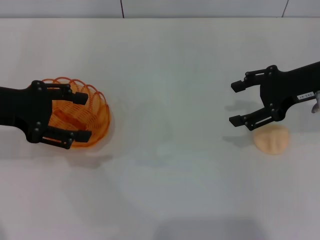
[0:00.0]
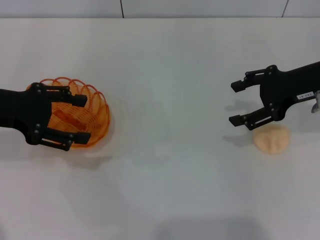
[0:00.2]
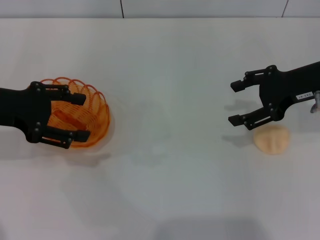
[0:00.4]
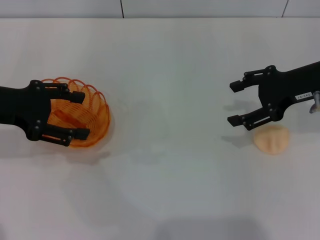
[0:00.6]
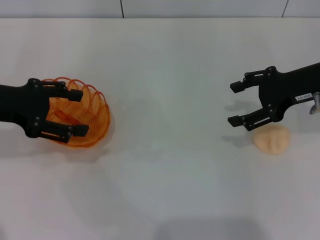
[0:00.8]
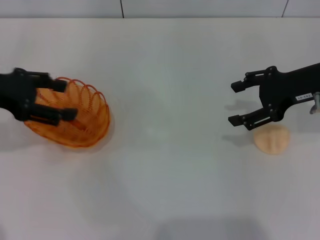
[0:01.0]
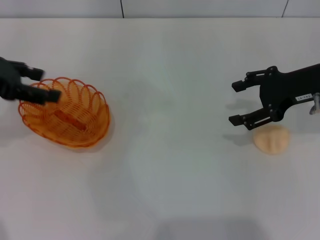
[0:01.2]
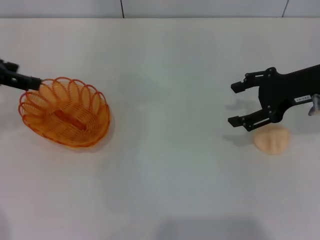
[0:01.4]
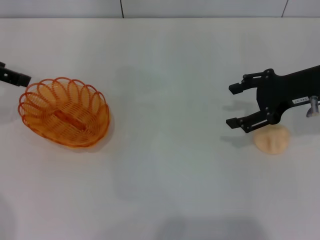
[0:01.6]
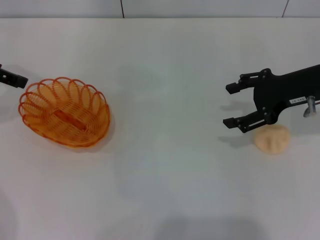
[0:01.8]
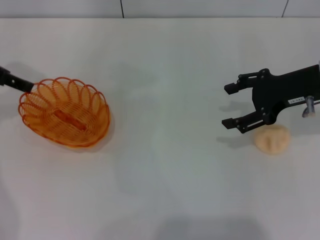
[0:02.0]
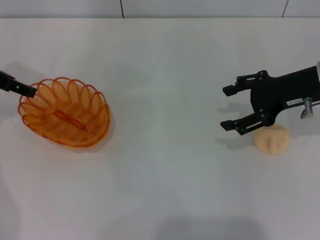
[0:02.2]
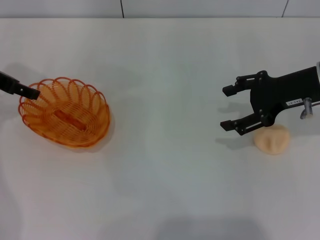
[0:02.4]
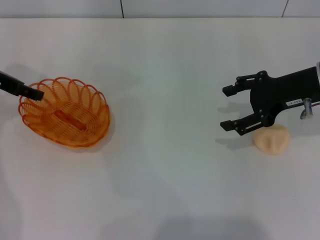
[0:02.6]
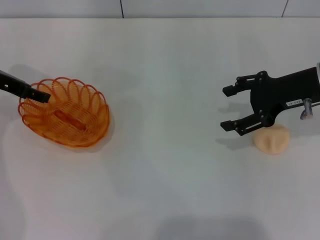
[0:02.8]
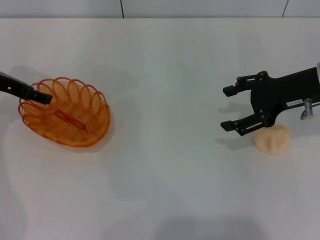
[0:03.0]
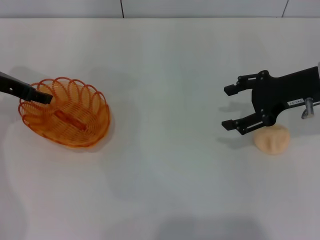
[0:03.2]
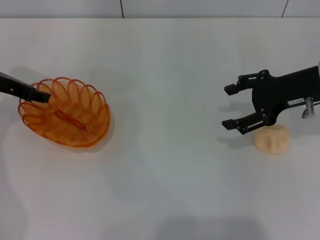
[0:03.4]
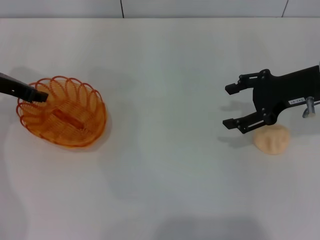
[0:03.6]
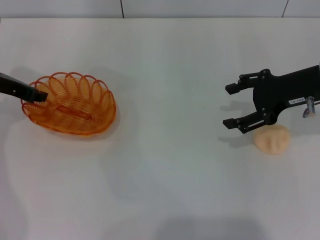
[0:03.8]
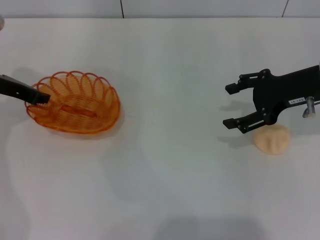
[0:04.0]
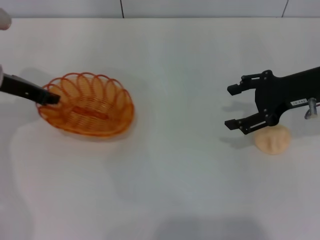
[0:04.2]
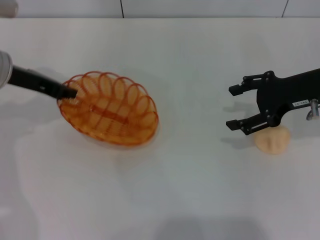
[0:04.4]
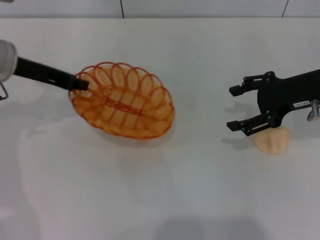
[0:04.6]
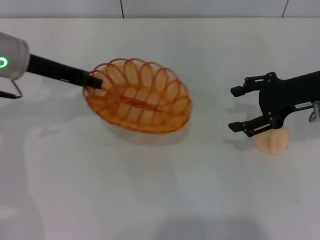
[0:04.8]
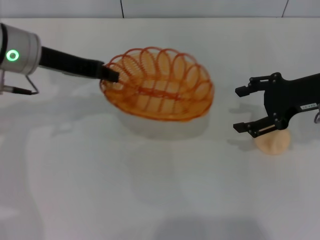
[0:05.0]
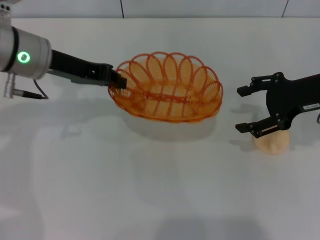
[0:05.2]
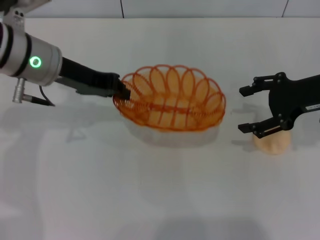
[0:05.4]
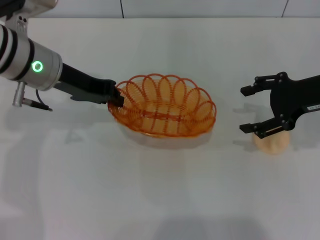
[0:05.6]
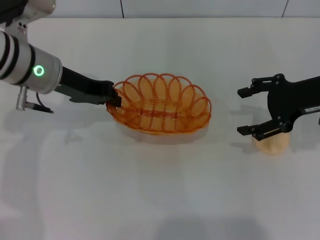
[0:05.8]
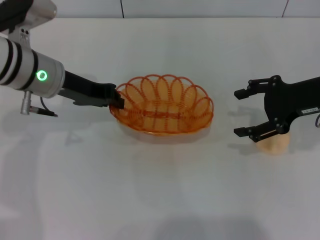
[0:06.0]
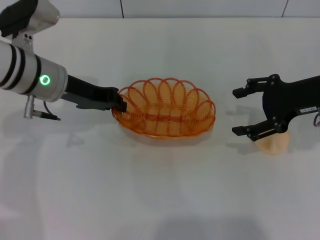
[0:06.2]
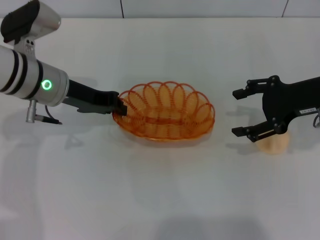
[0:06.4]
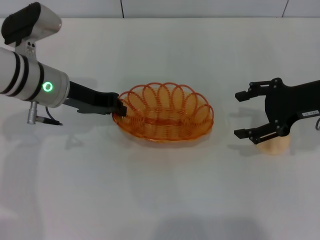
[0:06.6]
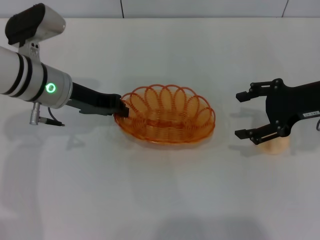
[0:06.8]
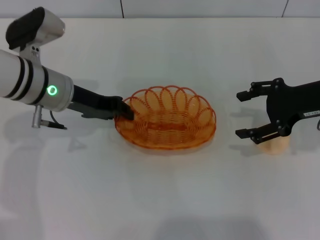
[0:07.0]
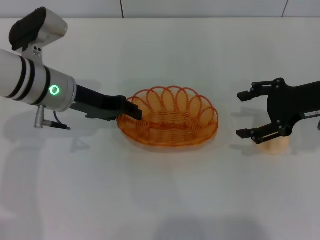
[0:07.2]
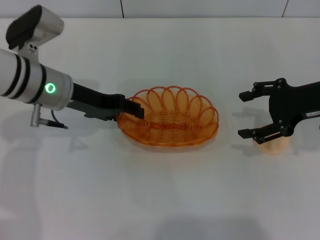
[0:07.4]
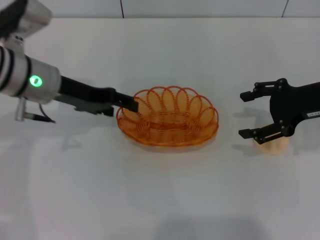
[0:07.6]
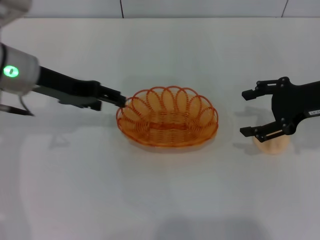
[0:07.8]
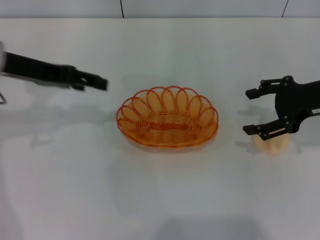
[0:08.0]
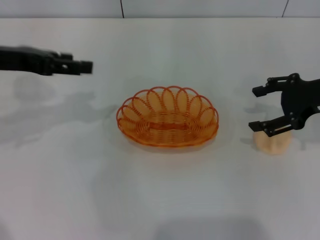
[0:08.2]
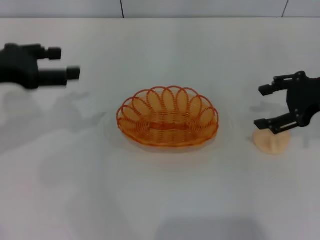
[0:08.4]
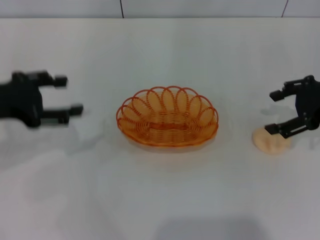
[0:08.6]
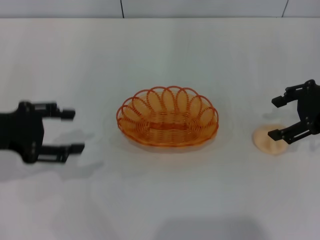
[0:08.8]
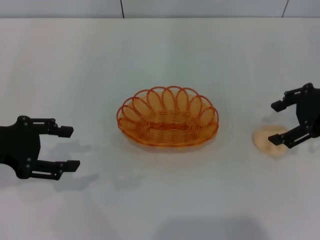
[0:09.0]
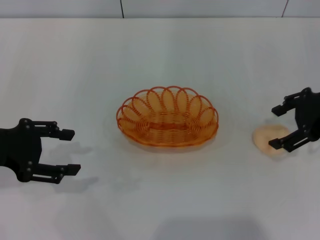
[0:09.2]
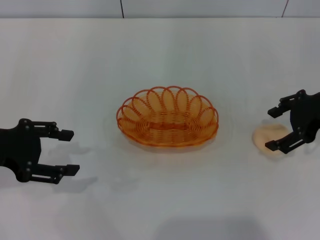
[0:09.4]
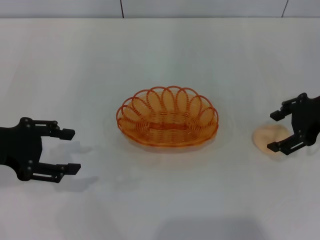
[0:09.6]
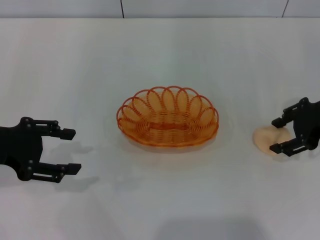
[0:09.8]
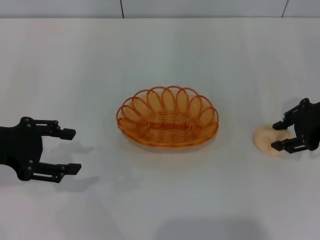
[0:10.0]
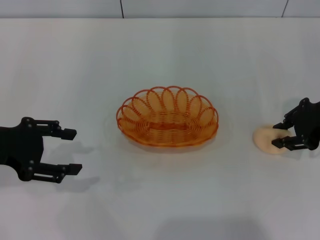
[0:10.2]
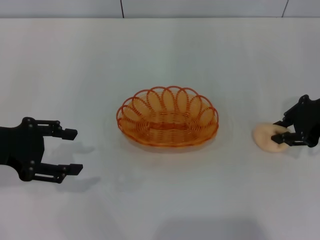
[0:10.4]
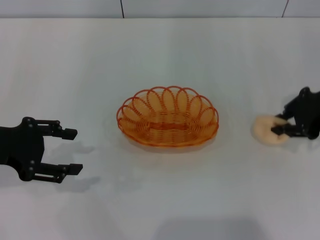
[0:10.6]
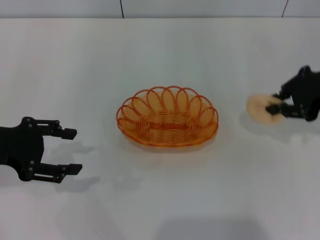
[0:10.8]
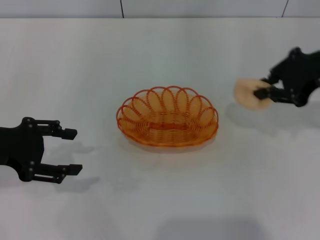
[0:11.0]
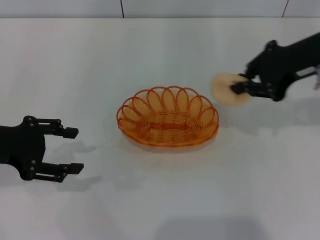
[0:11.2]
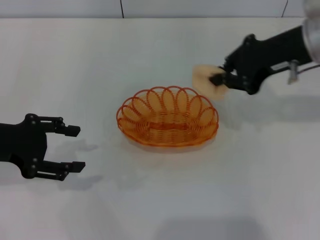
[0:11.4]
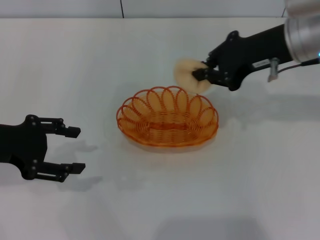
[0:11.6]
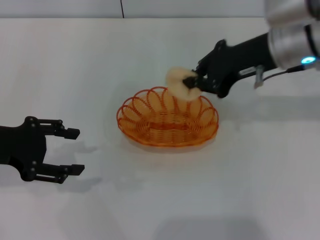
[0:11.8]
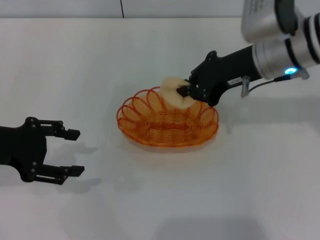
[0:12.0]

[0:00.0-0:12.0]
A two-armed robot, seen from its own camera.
Step, 0:00.0 to 0:05.0: Pick up the basket with the left gripper.
Step, 0:05.2 to 0:07.8: Place the basket in the center of view with the left gripper.
Step, 0:08.0 to 0:10.6: Pick up the egg yolk pastry with the right gripper.
0:00.0 to 0:01.6: The left gripper shifts roughly 5 cm upward.
0:01.6 to 0:03.0: The left gripper goes approximately 10 cm downward.
0:03.0 to 0:04.4: The left gripper ends up some 5 cm from where it was, and closes up.
0:04.4 to 0:06.0: The left gripper travels to the right by some 5 cm.
0:06.0 to 0:07.6: The left gripper opens its fingers.
0:07.6 to 0:09.0: The left gripper travels to the left and backward by about 15 cm.
0:09.0 to 0:10.4: The right gripper closes.
0:10.4 to 0:12.0: The right gripper shifts roughly 10 cm to the left.

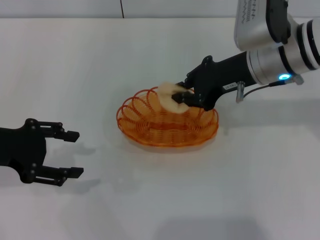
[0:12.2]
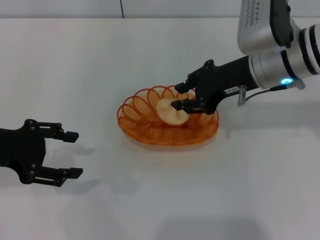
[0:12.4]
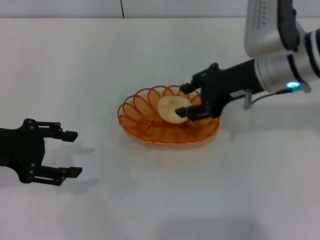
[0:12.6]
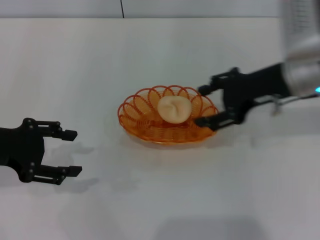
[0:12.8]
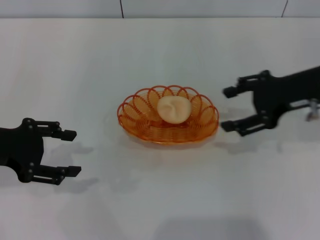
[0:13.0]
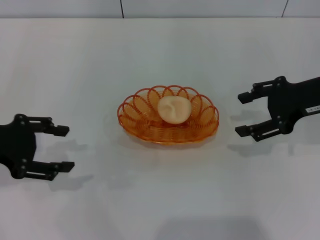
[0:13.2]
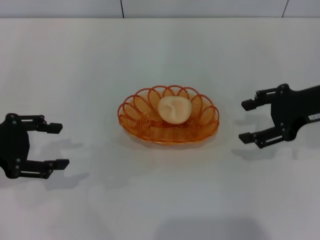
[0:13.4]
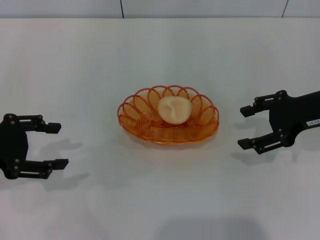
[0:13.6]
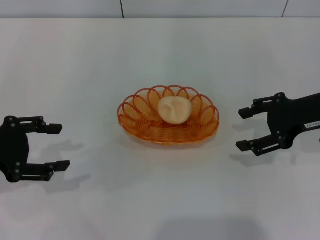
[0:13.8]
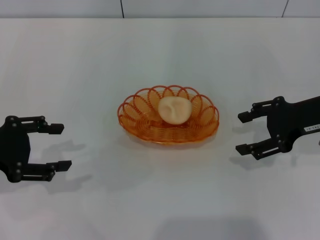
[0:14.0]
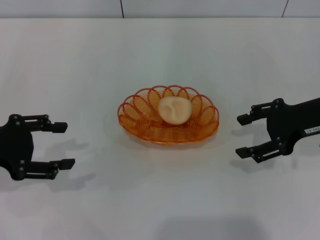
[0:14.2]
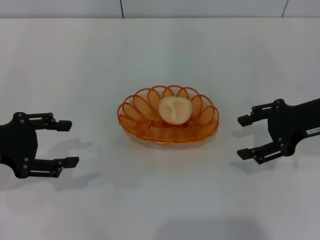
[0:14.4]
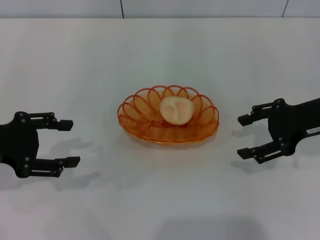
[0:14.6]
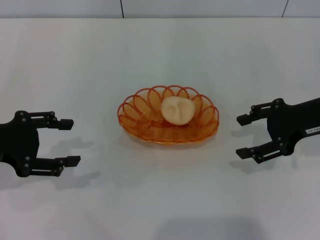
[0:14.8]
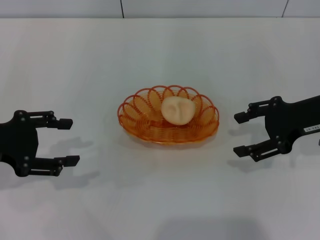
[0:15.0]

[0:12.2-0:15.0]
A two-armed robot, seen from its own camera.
0:12.2 to 0:13.6: The right gripper shifts some 10 cm to the right, and opens.
0:13.6 to 0:15.0: There are only small adjustments of the grippers.

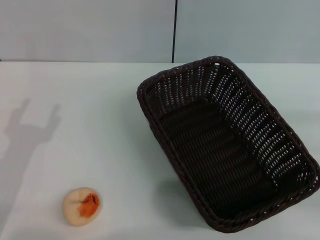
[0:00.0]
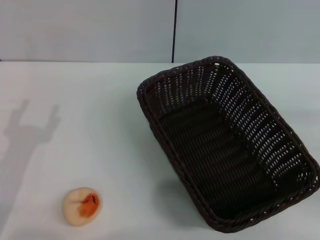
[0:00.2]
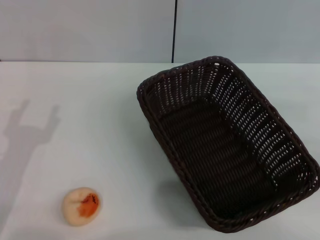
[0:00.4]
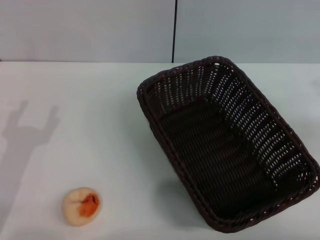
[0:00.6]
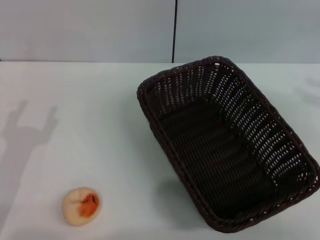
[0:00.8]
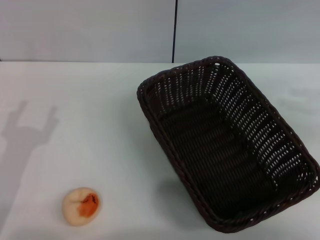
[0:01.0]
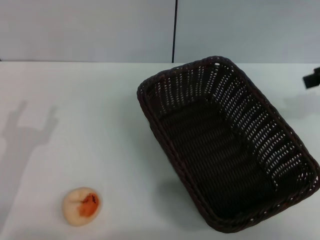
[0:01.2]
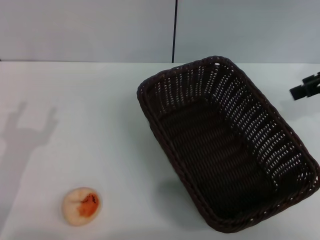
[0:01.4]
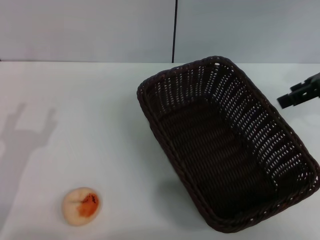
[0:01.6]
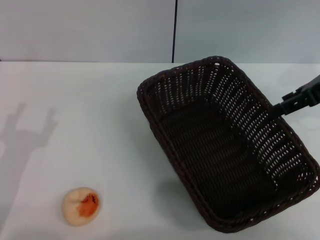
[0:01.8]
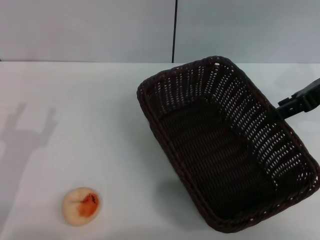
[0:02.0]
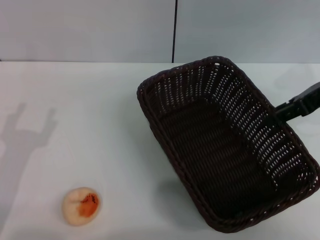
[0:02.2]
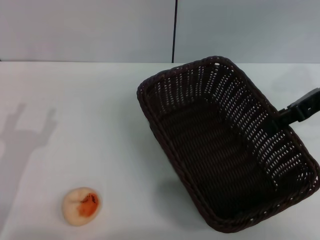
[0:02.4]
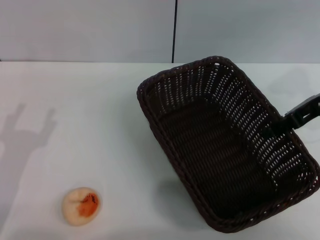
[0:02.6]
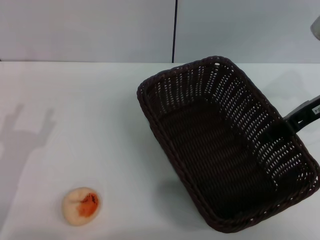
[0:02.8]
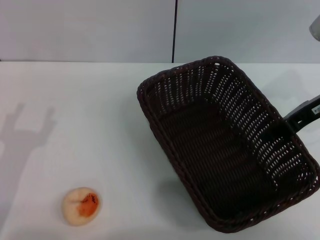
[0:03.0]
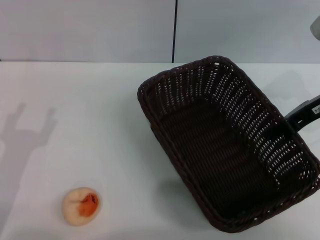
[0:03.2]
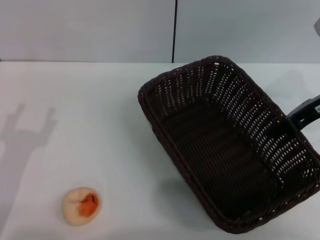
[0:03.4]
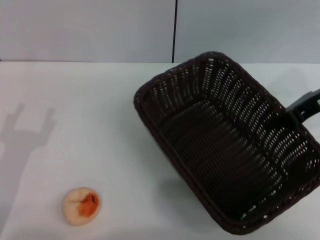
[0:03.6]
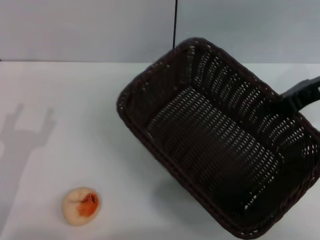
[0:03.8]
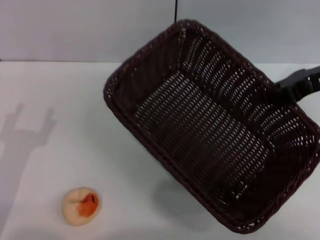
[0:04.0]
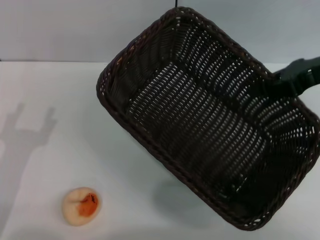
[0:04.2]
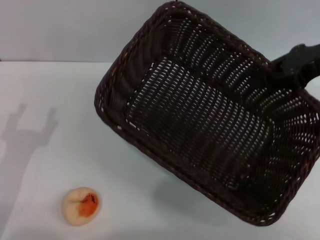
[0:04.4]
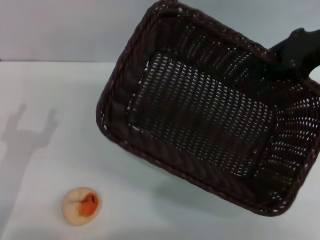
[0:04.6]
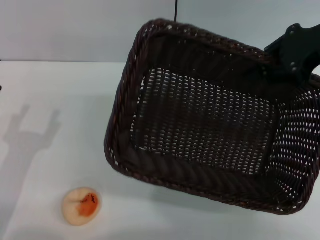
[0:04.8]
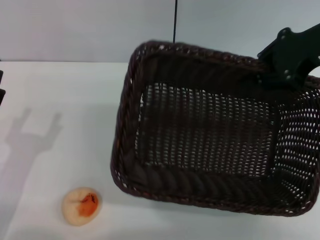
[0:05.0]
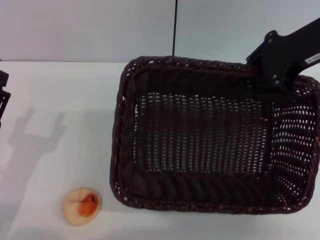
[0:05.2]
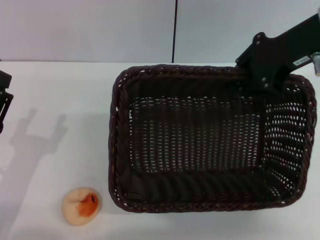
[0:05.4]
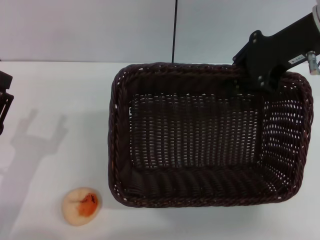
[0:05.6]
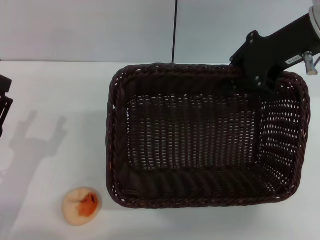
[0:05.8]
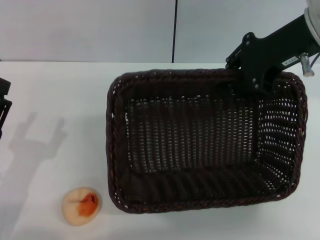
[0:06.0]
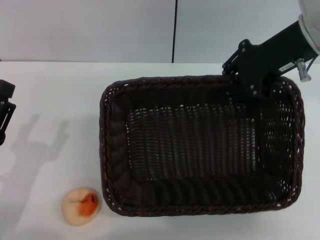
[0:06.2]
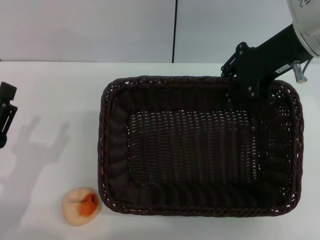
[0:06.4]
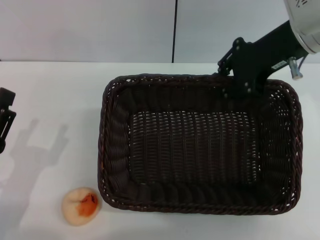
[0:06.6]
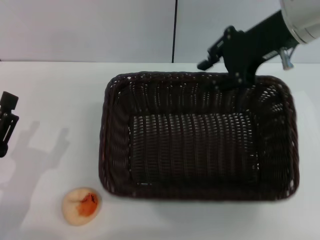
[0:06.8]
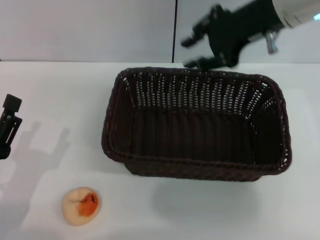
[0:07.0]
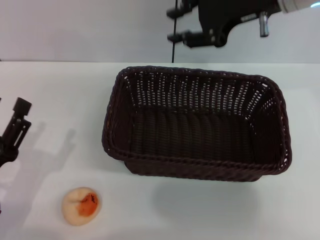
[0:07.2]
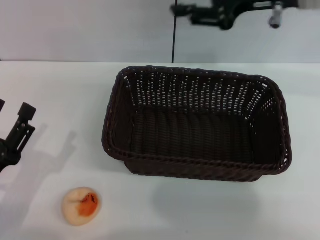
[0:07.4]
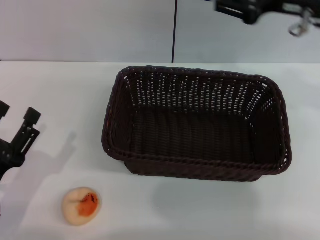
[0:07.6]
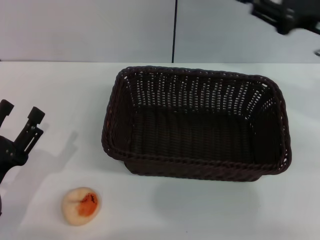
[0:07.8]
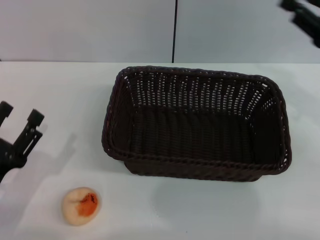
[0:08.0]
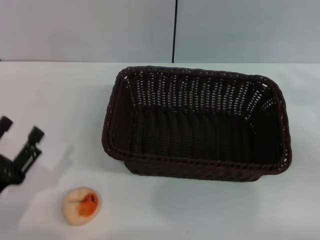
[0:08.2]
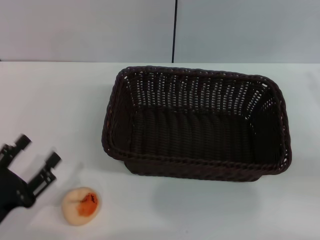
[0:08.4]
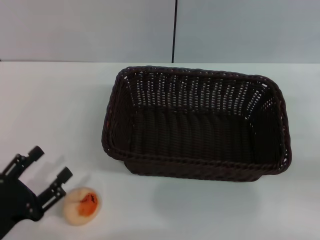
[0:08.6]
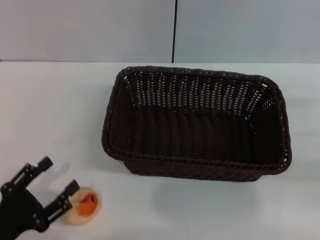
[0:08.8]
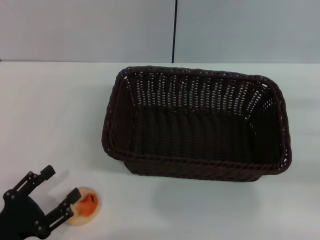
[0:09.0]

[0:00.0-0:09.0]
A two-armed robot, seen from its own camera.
Step, 0:00.0 to 0:07.0: Move the basket to the center of view with the right gripper.
0:00.0 to 0:01.6: The right gripper moves forward, upward and to the left, approximately 20 cm.
0:01.6 to 0:03.0: The right gripper is displaced downward by approximately 5 cm.
0:03.0 to 0:04.4: The right gripper goes approximately 5 cm upward, and closes its fingers.
0:04.4 to 0:06.0: The right gripper moves to the left, about 5 cm.
0:06.0 to 0:07.6: The right gripper opens.
0:07.6 to 0:09.0: The right gripper shifts roughly 25 cm to the right, downward and backward.
